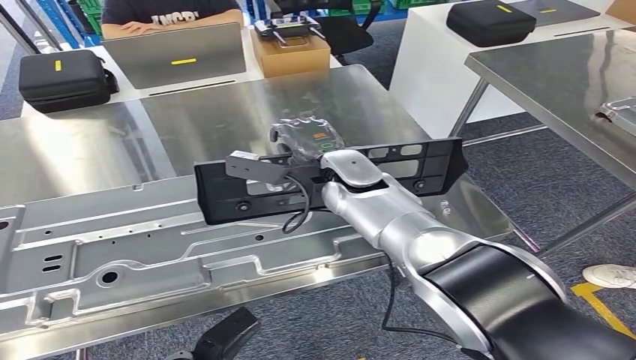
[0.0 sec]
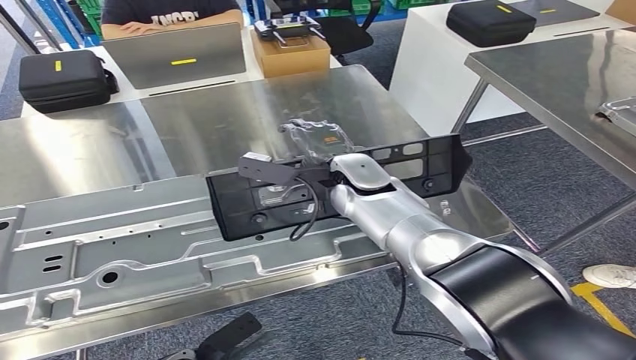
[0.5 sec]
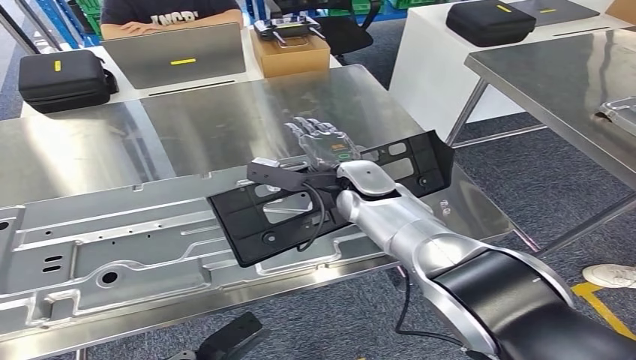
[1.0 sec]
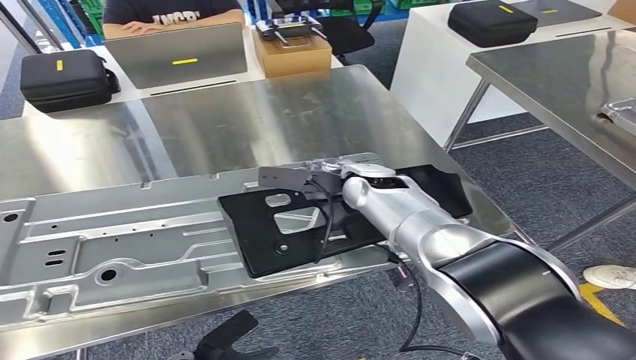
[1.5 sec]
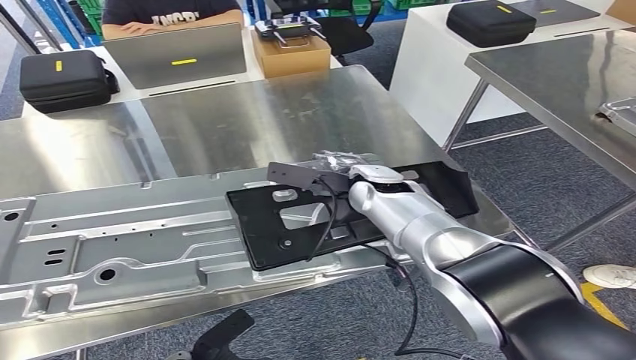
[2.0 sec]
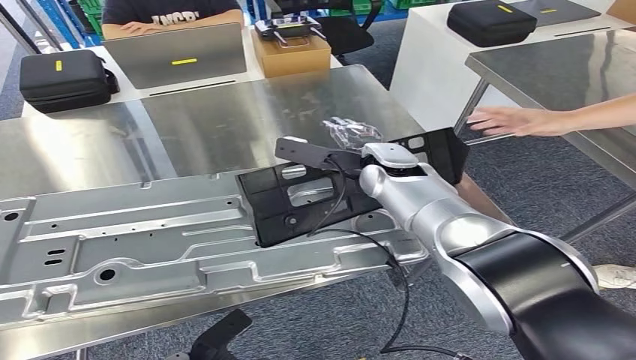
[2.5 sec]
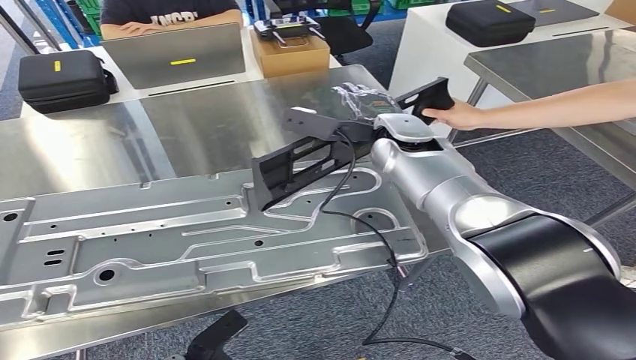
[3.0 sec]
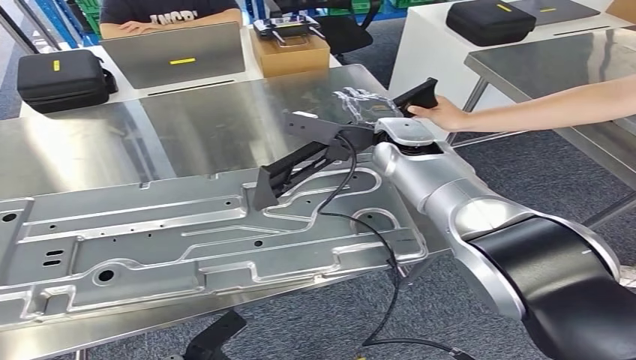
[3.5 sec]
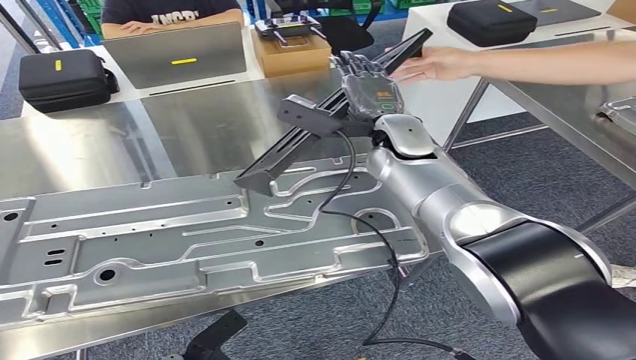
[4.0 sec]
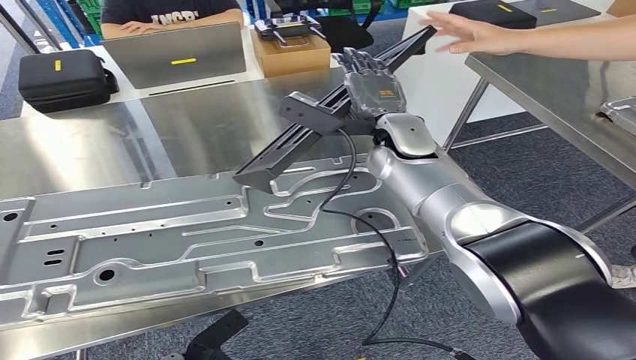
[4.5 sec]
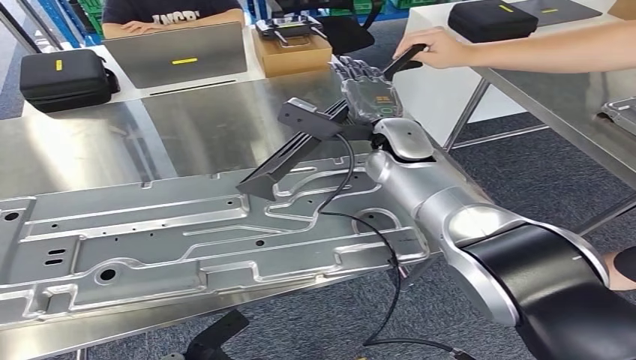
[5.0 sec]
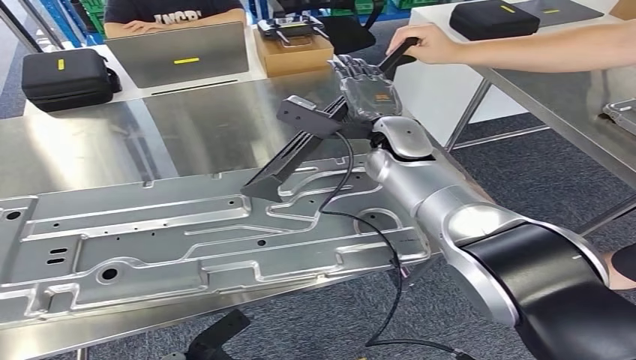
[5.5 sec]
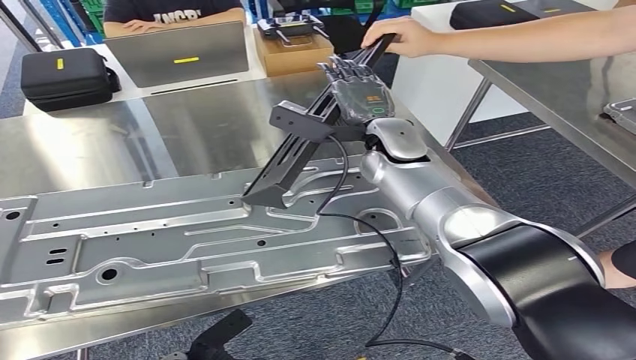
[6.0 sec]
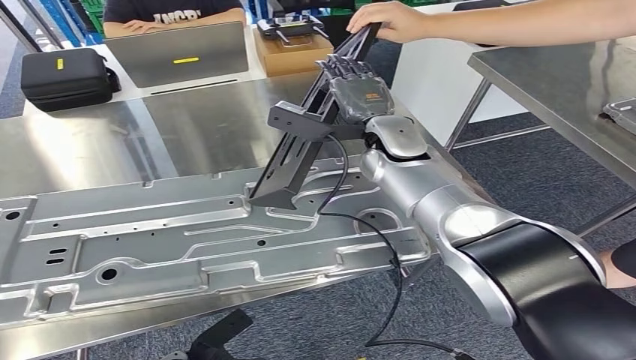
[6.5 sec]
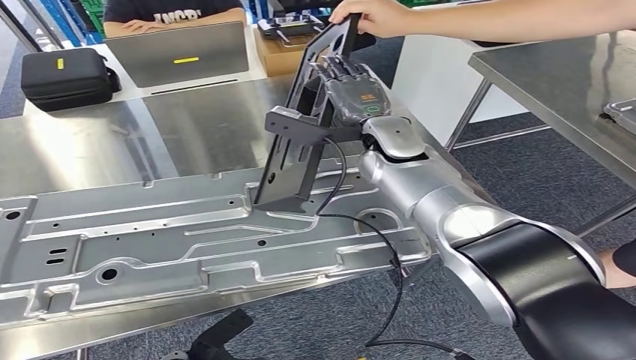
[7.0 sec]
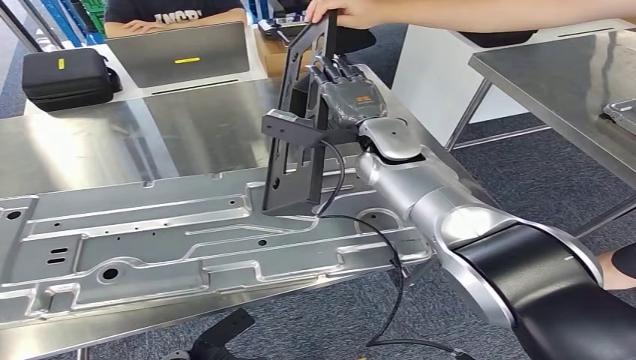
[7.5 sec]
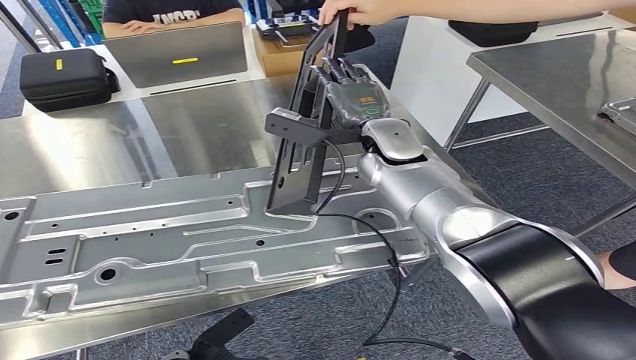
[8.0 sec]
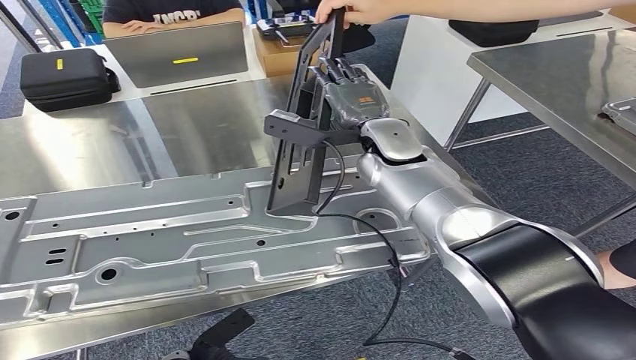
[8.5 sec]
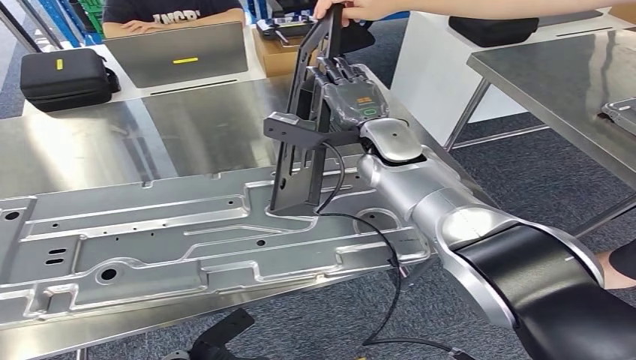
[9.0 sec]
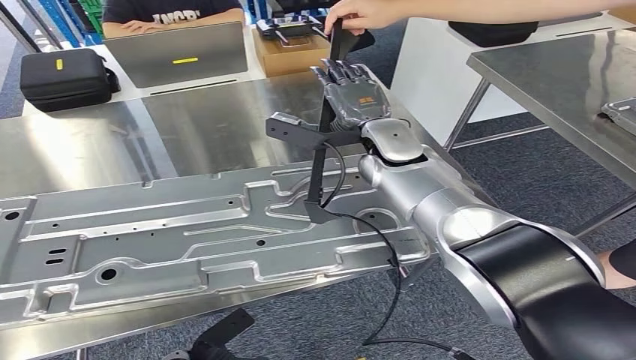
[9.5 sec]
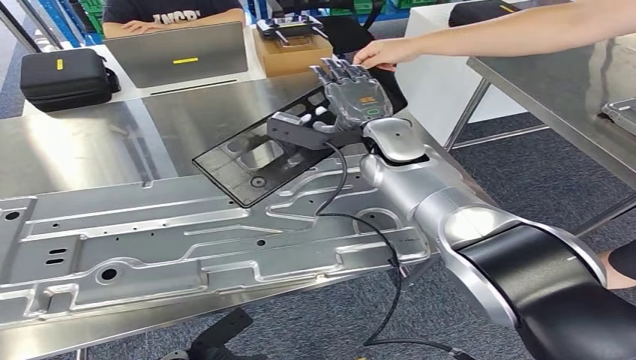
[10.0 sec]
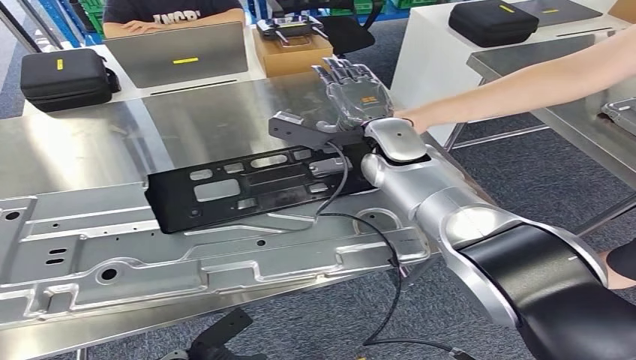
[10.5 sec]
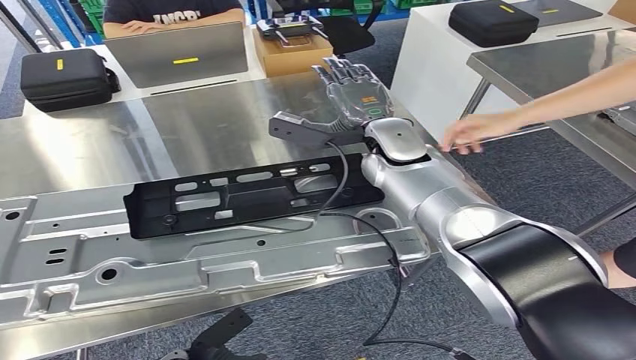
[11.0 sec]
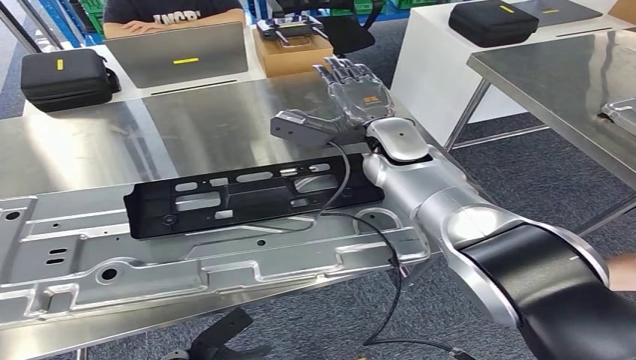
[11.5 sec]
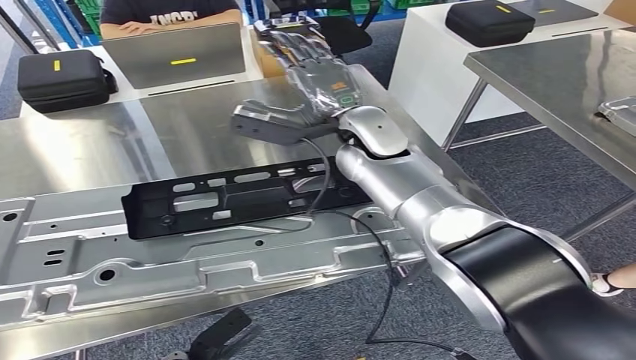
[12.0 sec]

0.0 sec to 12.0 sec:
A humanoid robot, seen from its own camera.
Step, 0.0 sec to 11.5 sec: Insert the large material into the corresponding slot on the workbench.
4.0 sec to 6.0 sec: Both hands stay about where they are.
6.0 sec to 8.0 sec: There are only small adjustments of the hands.
8.0 sec to 10.0 sec: Both hands stay about where they are.

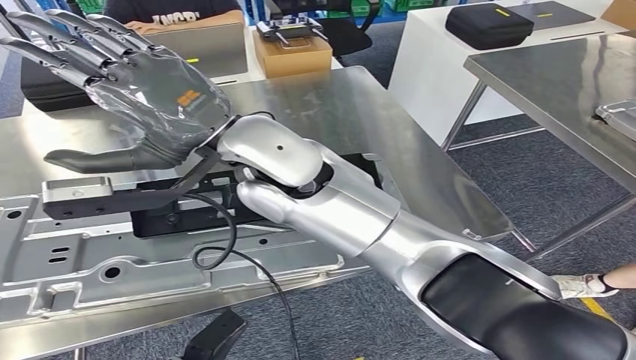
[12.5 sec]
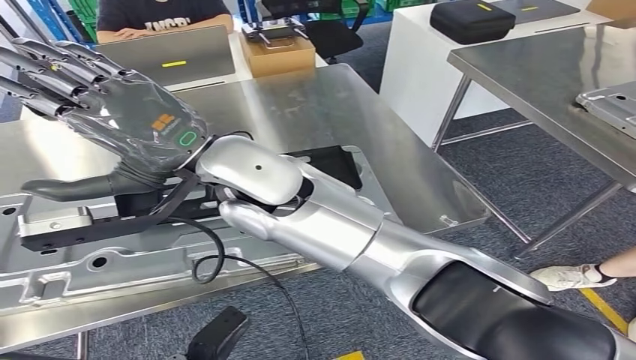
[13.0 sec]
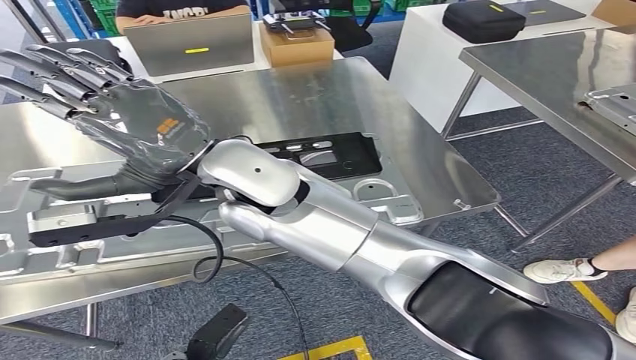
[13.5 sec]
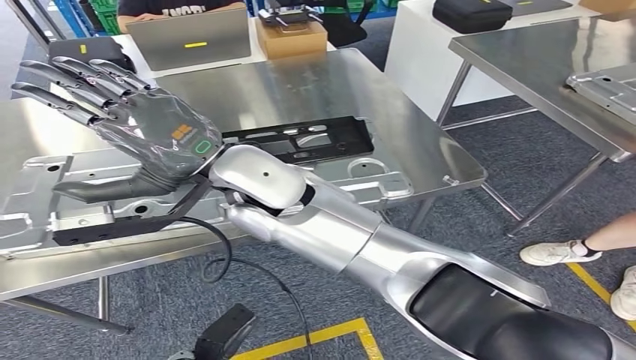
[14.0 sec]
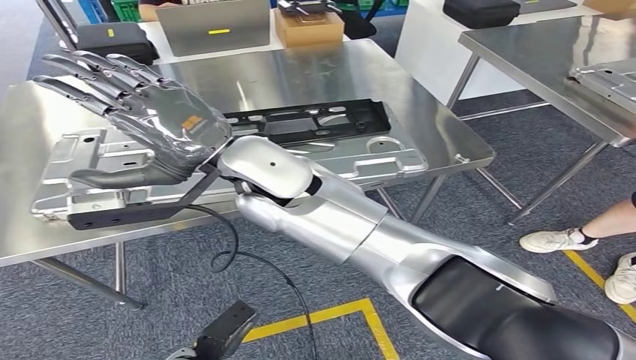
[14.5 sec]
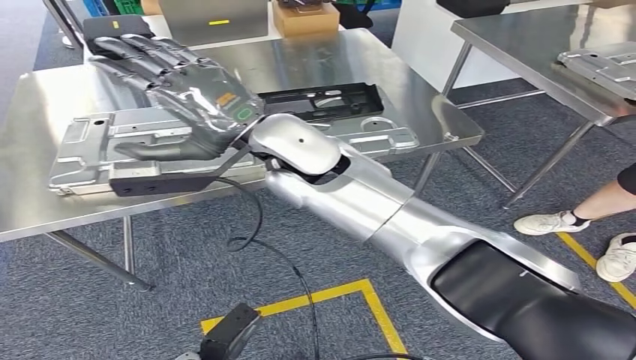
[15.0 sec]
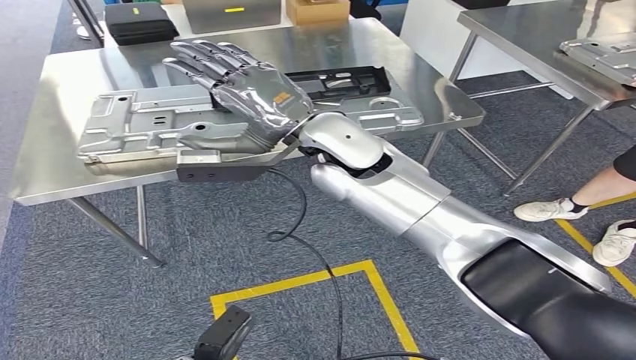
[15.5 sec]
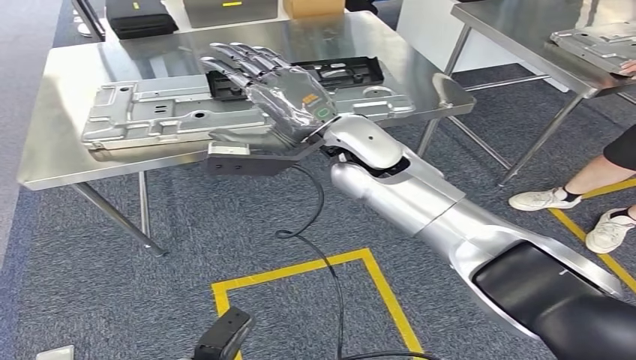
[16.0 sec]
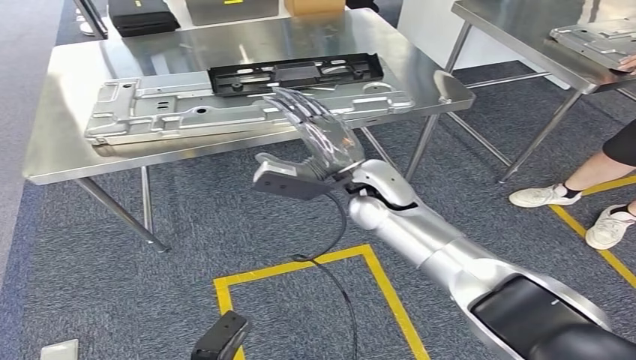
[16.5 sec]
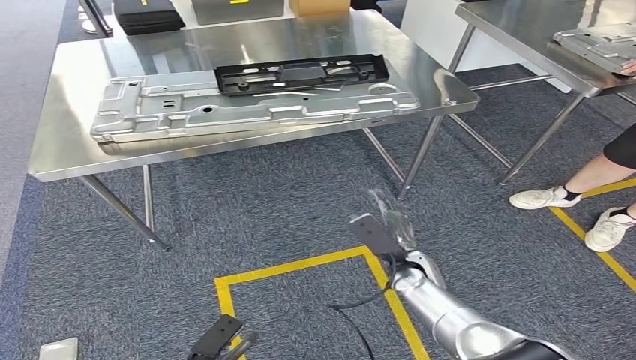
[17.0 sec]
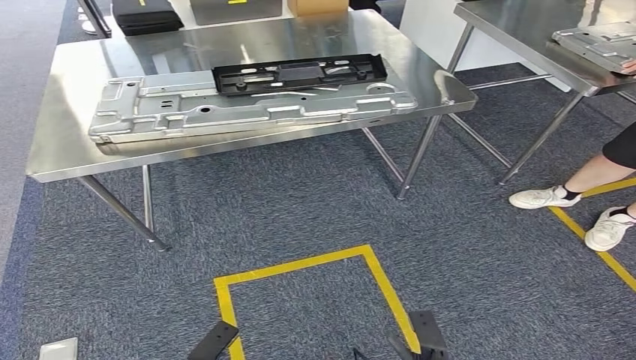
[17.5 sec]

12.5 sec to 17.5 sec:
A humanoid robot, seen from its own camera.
Step, 12.5 sec to 17.5 sec: Move to the initial position of the shelf.
